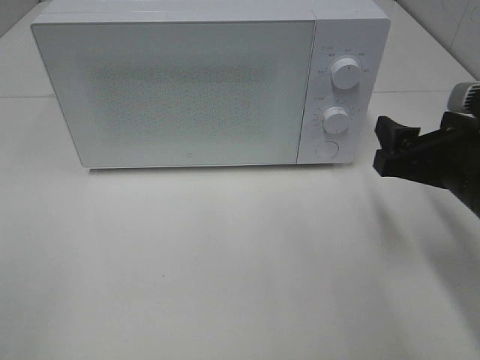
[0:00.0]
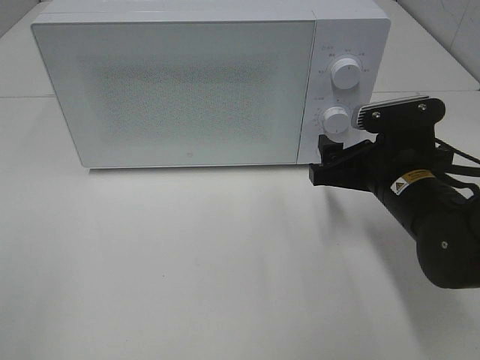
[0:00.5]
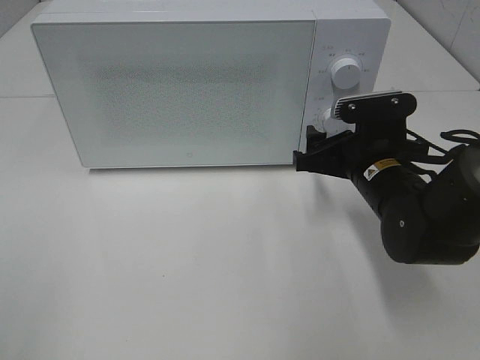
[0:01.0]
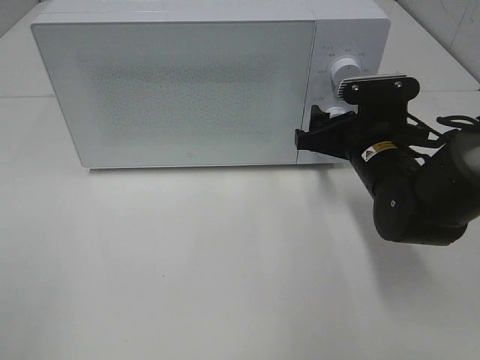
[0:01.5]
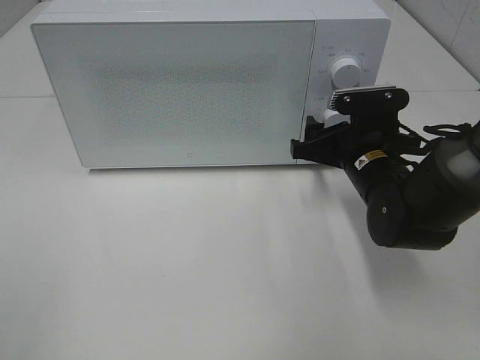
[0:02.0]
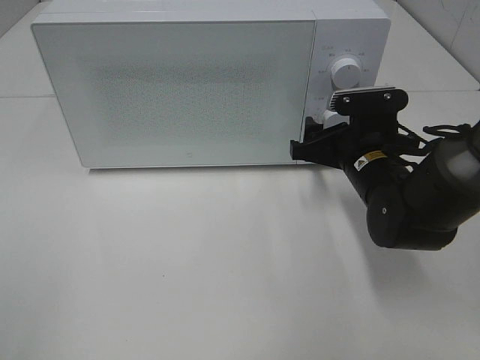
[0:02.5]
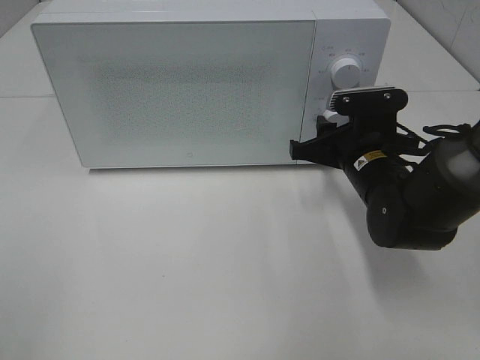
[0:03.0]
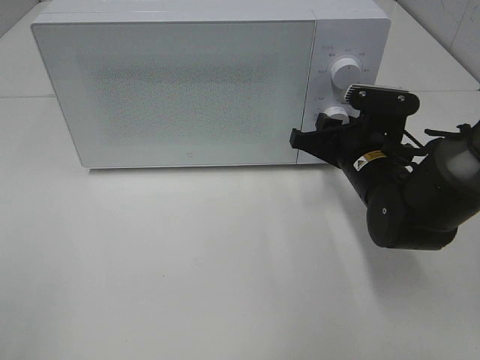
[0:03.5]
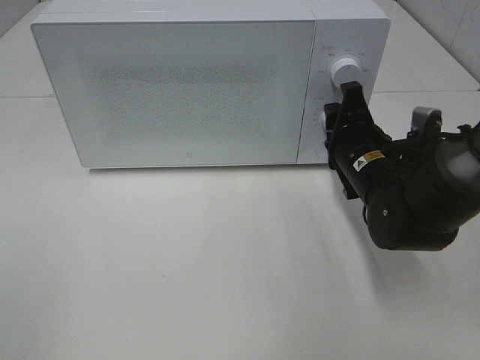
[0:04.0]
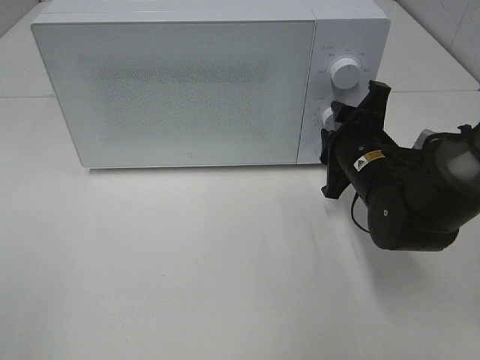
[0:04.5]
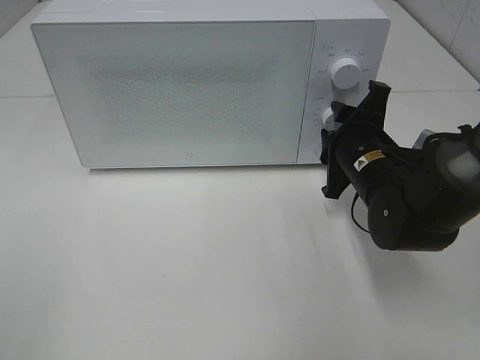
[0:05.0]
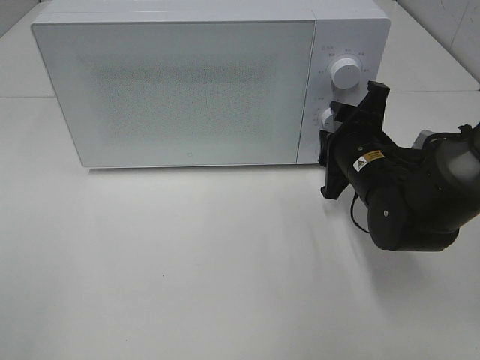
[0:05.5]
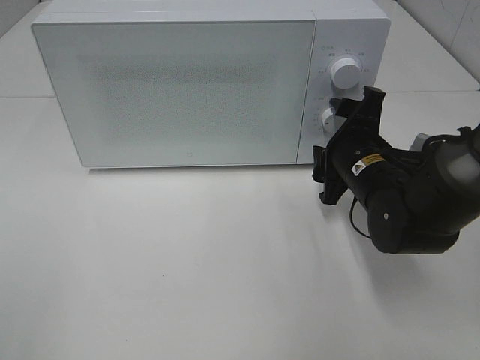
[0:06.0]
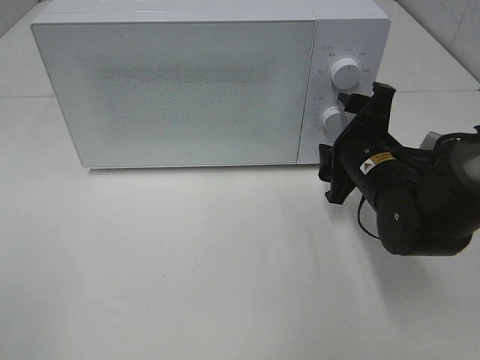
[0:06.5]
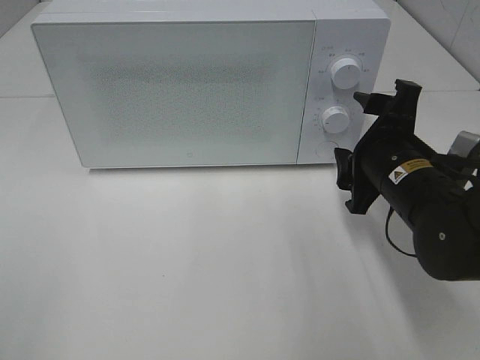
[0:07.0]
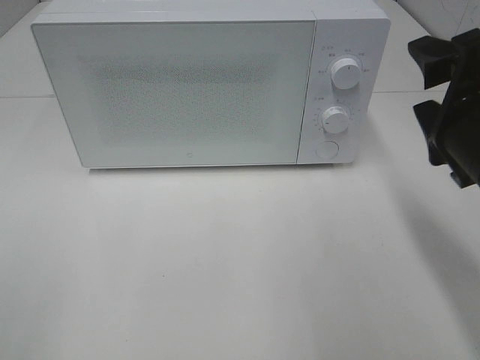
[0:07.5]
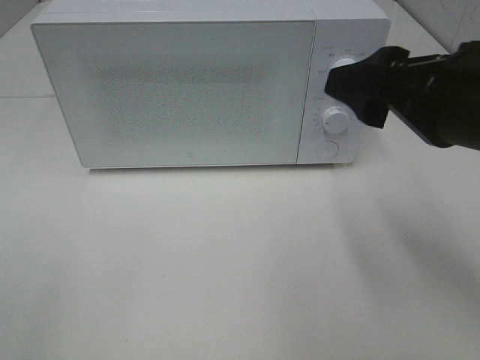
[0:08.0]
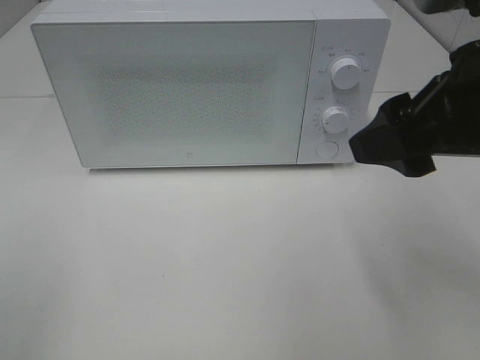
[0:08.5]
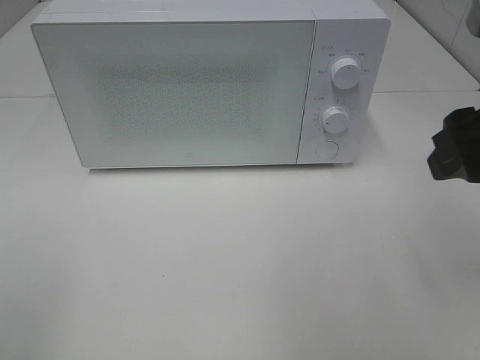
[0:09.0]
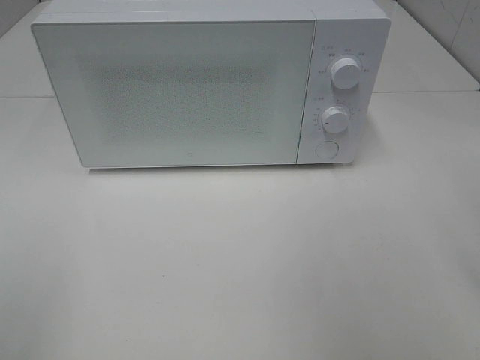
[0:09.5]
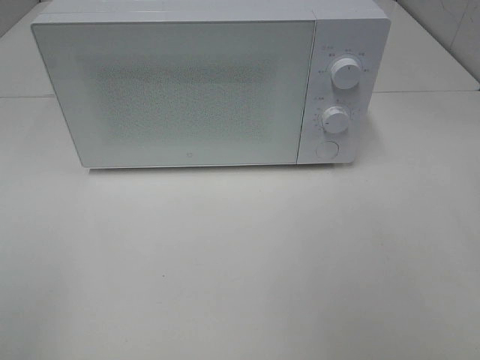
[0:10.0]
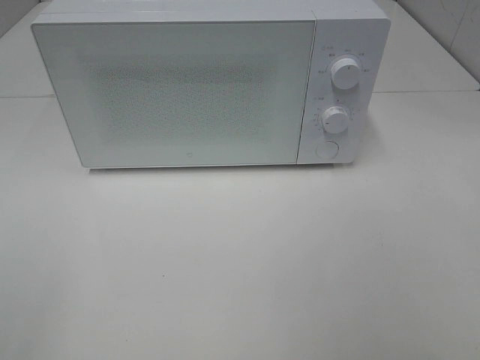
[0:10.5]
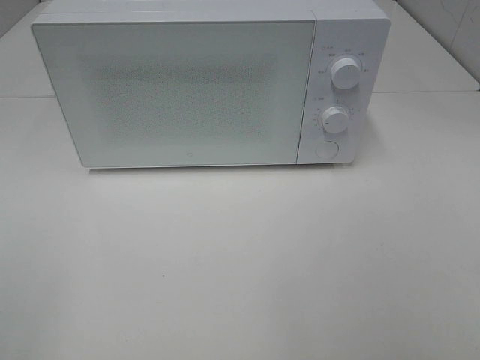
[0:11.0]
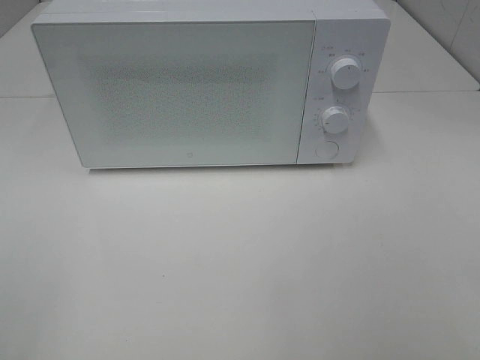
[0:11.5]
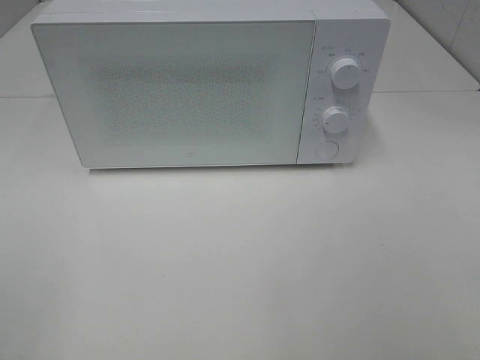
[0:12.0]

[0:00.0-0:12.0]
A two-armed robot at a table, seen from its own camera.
Task of the whole recording: Heat the burger.
Step, 0.0 to 5.5 s: Right hand: twist timer button.
0.0 to 2.0 s: The right gripper is displaced forward, to the left and downward by approximately 15 cm.
2.0 to 4.0 s: The right gripper closes.
6.0 to 8.0 s: The right gripper is displaced upward and backward by some 20 cm.
8.0 to 10.0 s: The right gripper heads to the right, covering about 10 cm.

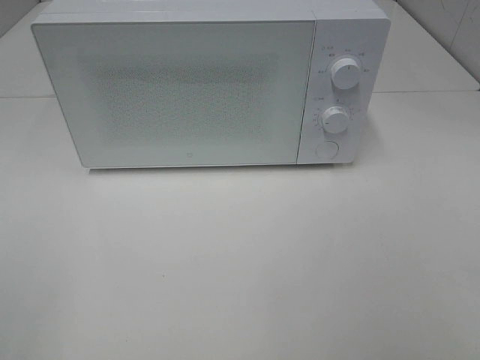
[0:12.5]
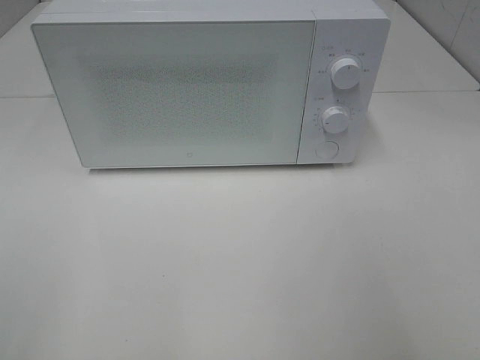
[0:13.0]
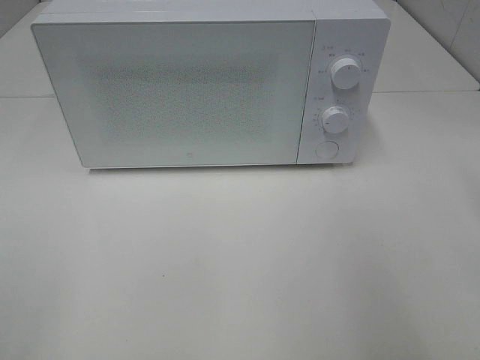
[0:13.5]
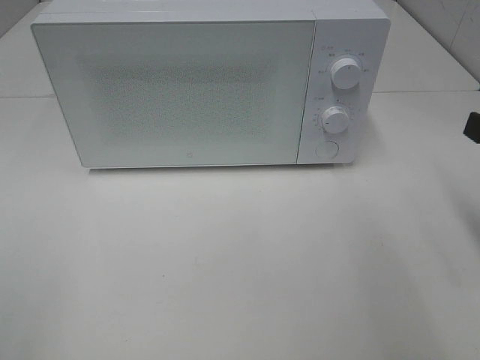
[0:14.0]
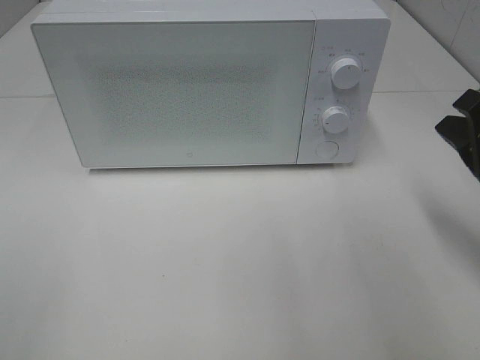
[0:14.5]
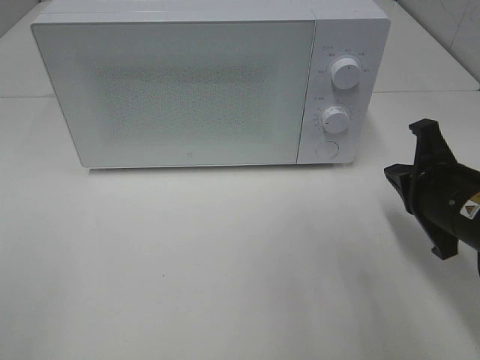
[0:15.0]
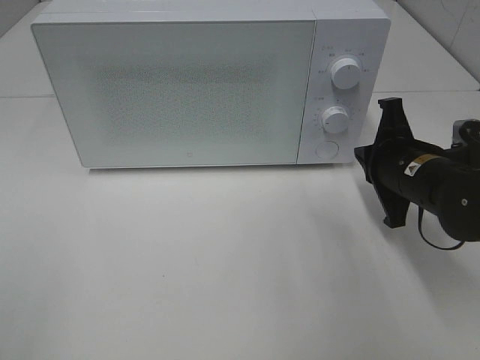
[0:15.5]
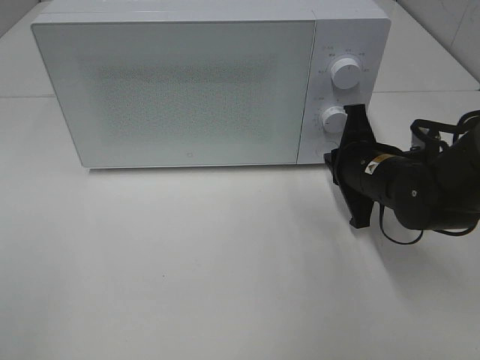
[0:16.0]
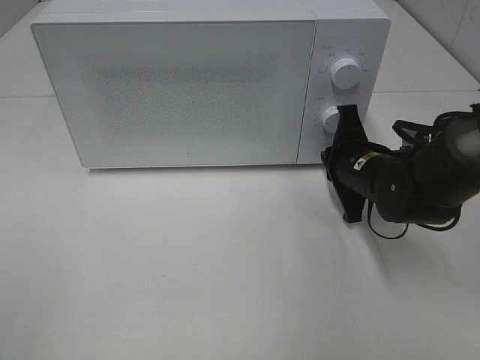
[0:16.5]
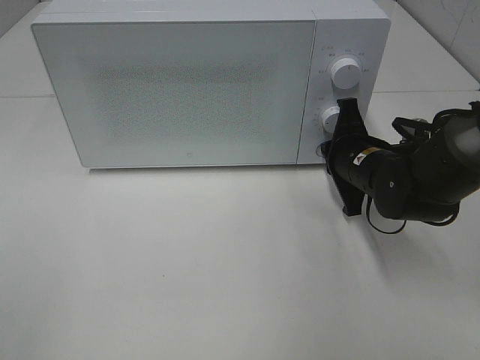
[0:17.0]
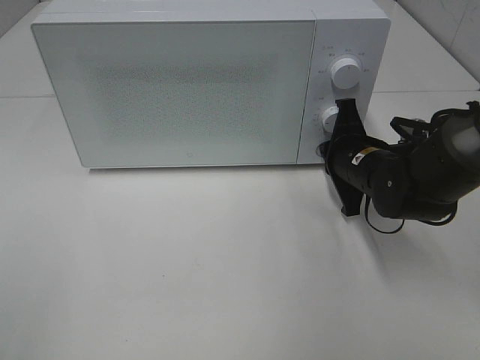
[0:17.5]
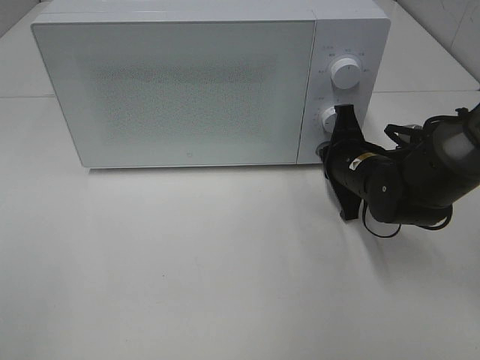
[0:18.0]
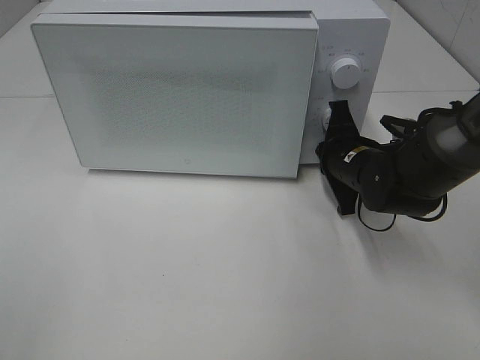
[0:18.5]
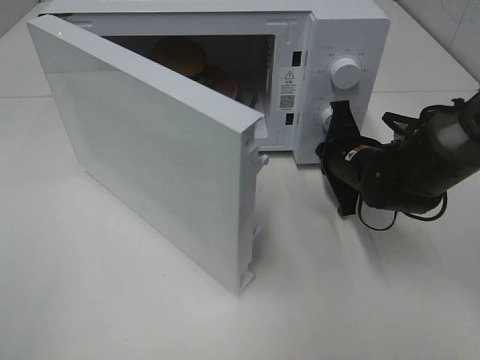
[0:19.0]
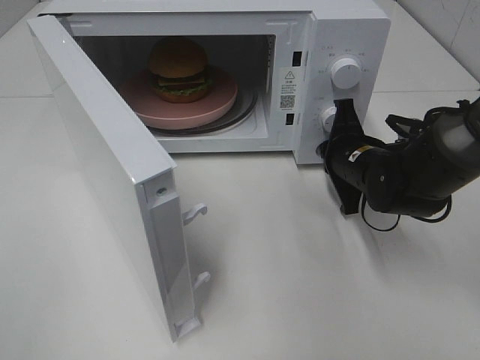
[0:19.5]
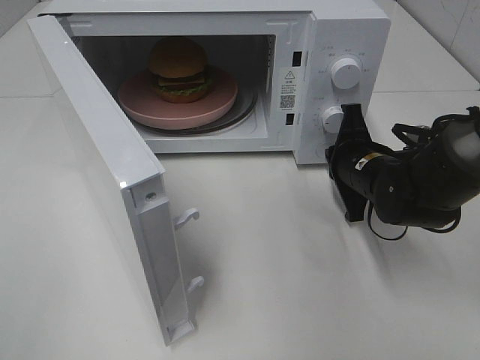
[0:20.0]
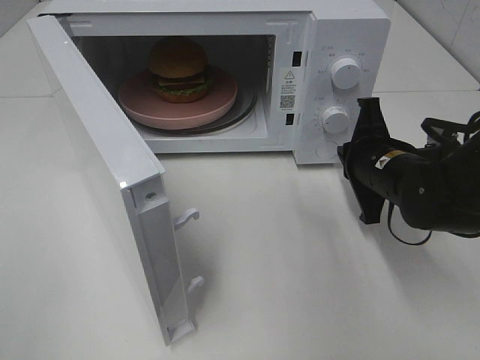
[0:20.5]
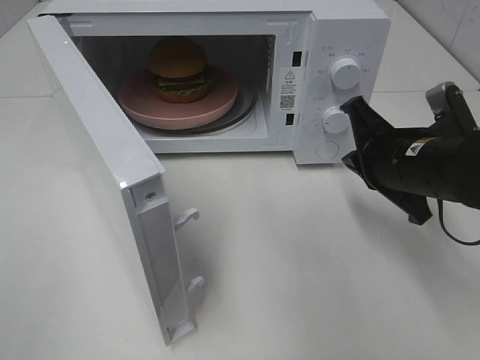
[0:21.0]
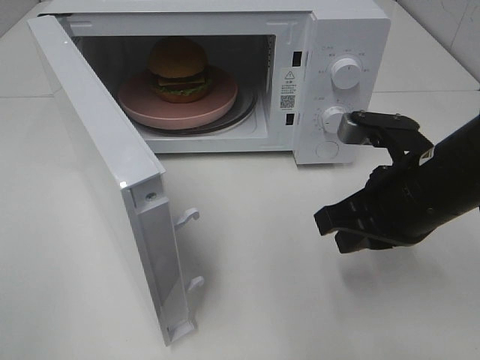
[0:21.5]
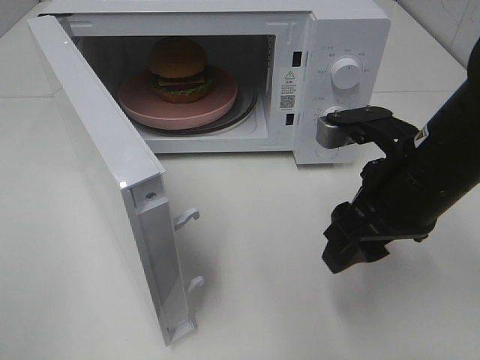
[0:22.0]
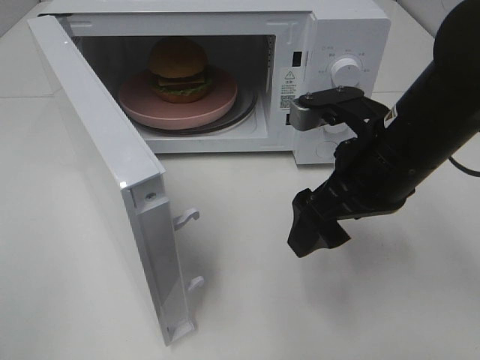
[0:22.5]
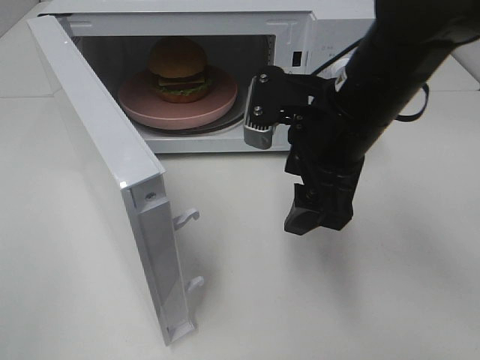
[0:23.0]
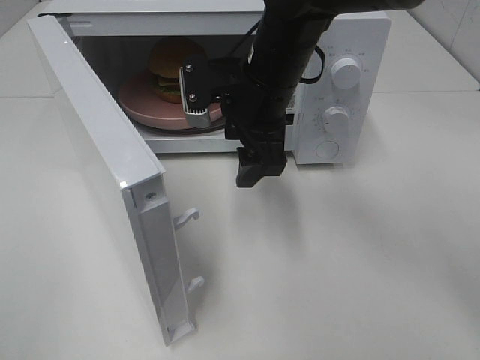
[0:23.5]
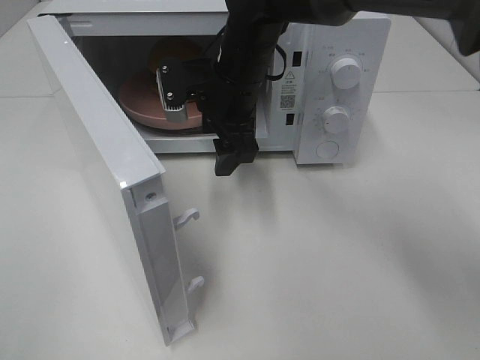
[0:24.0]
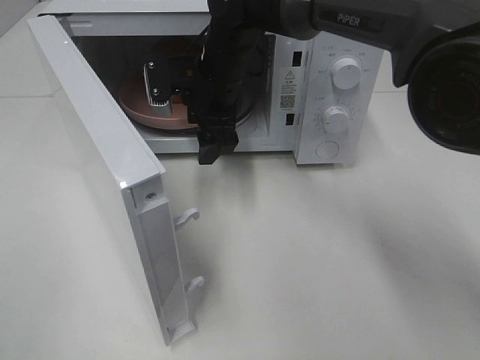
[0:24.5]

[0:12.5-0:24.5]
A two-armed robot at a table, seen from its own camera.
Task of the whole recording: Heat the burger.
Step, 12.5 to 20.0 s: Right hand: press the switch.
12.5 to 14.5 s: The right gripper shifts roughly 25 cm forward and downward, and closes its fingers.
14.5 to 16.5 s: The right gripper shifts some 20 cm forward, to the left and downward.
16.5 to 18.5 s: The grippers stay close to where they were, moving slightly.
18.5 to 20.5 s: The right gripper shifts by some 5 cm.
20.5 to 22.5 s: The right gripper shifts about 10 cm upward and backward, and opens.
22.5 to 24.5 s: The right gripper travels forward and to the left by roughly 25 cm.

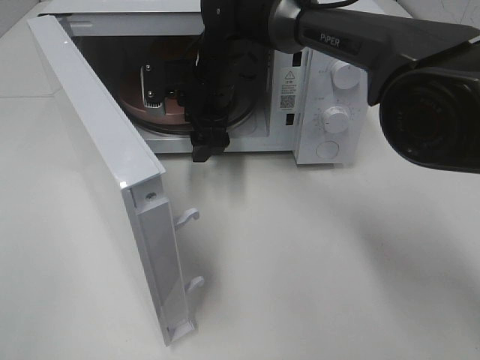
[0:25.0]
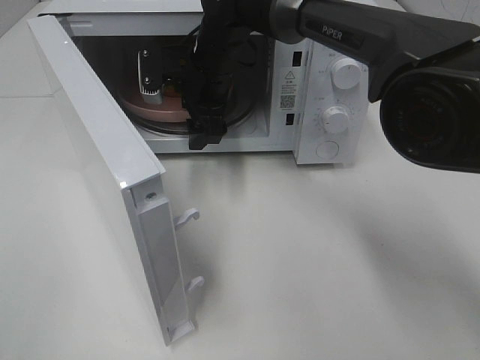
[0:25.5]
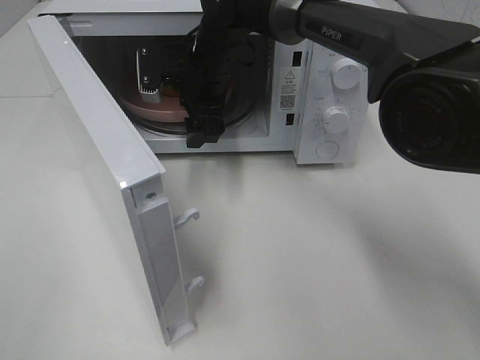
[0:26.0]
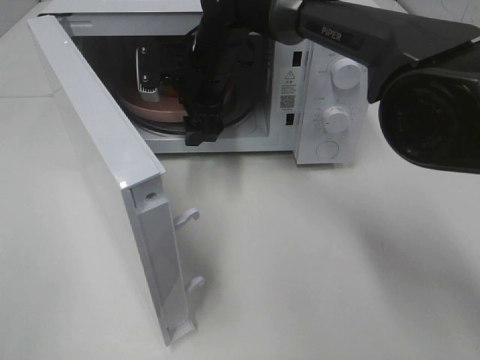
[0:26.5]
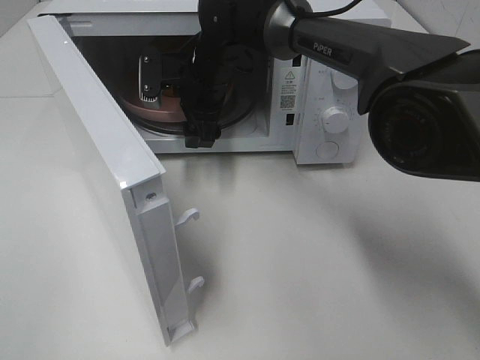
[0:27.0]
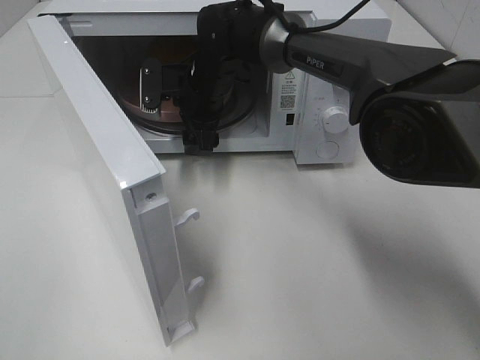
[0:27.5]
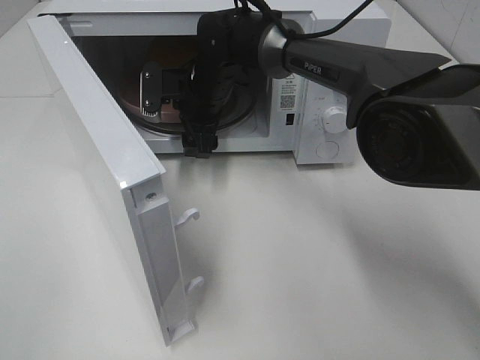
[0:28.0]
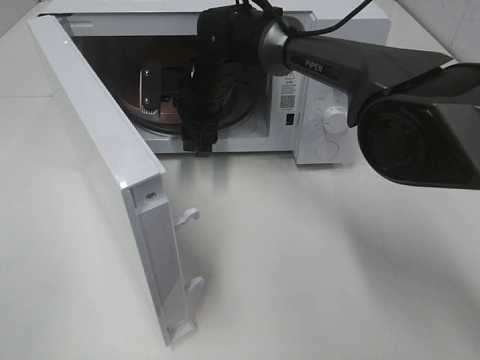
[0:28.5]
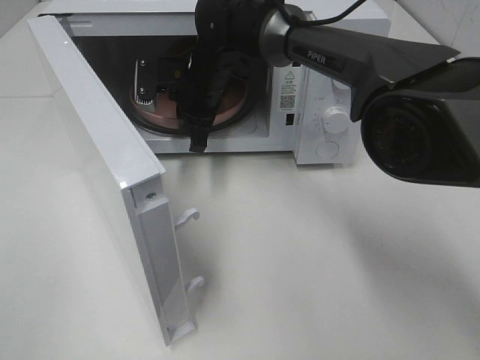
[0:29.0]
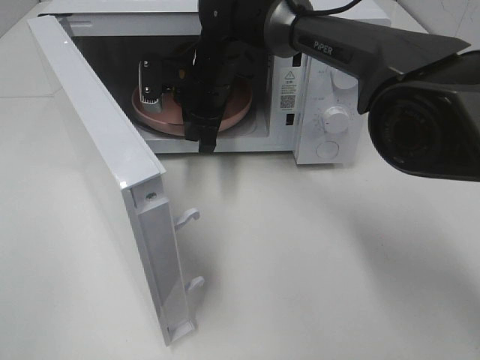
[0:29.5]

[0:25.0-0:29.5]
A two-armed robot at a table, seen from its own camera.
Task of the whole recording: Heat the burger.
Step, 25.0 to 28.5 s: Right hand: grab the plate with the hamburger.
25.0 to 27.0 s: There are only small adjustments of the grippers.
27.0 to 29.5 s: The right gripper closes its fingers.
